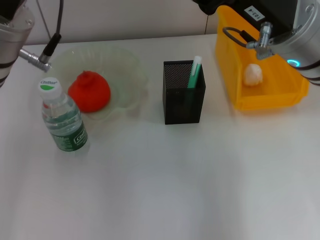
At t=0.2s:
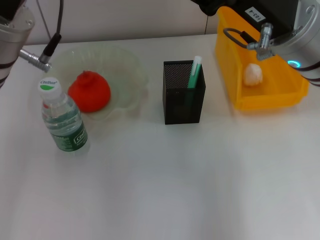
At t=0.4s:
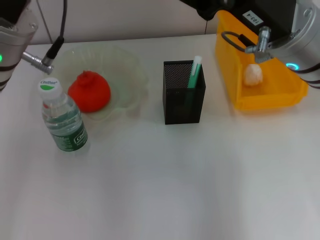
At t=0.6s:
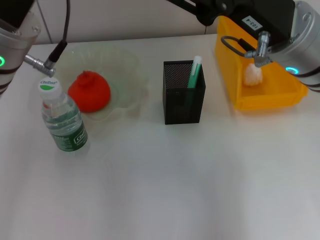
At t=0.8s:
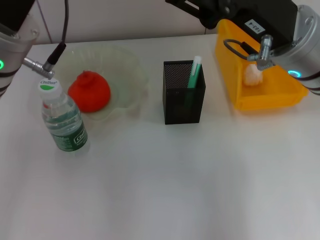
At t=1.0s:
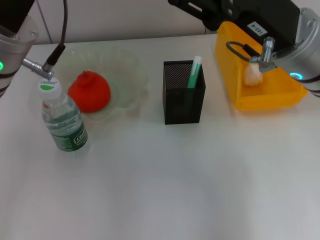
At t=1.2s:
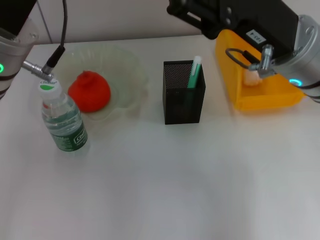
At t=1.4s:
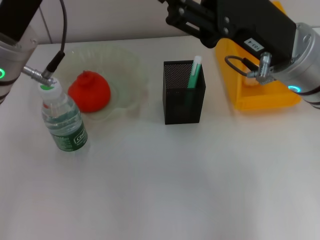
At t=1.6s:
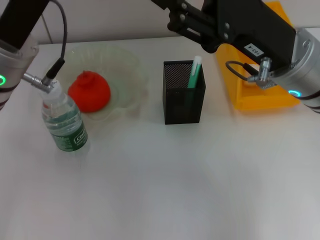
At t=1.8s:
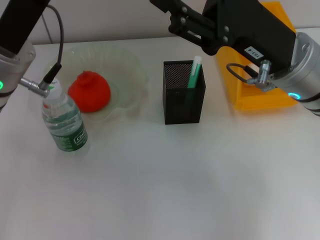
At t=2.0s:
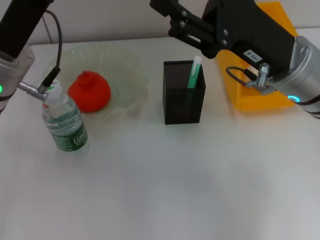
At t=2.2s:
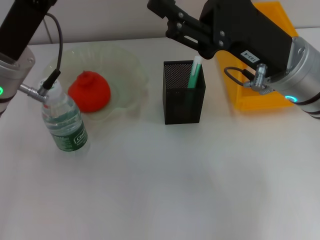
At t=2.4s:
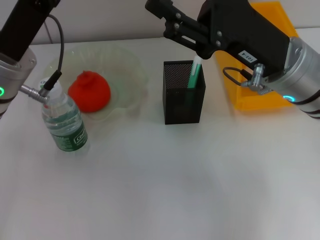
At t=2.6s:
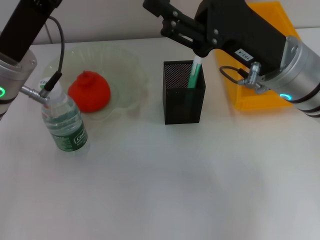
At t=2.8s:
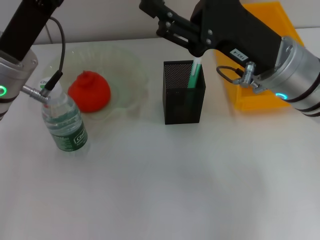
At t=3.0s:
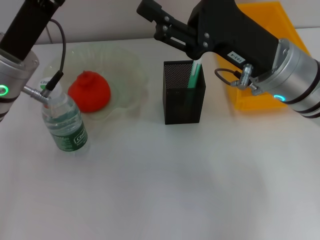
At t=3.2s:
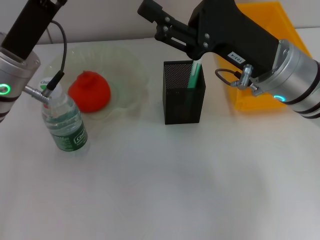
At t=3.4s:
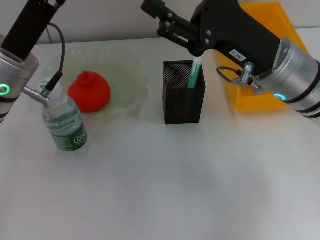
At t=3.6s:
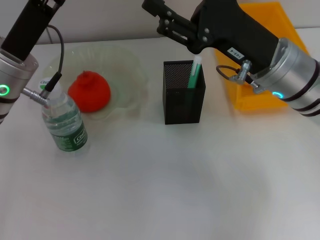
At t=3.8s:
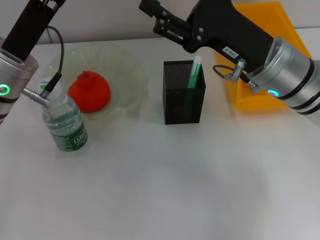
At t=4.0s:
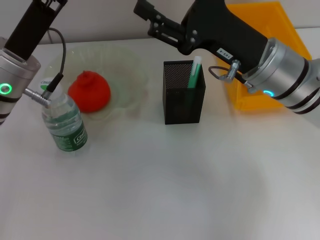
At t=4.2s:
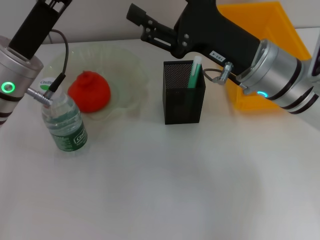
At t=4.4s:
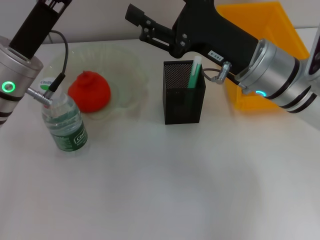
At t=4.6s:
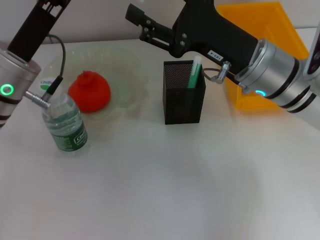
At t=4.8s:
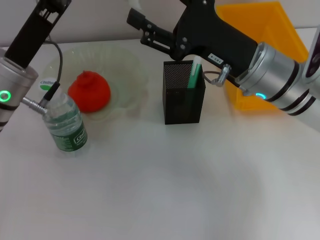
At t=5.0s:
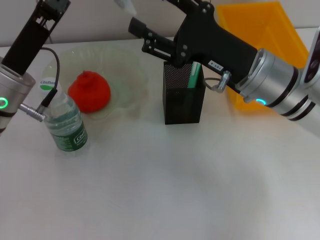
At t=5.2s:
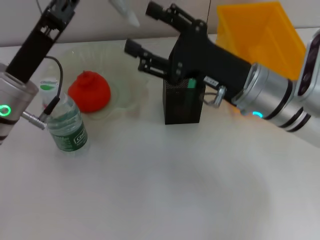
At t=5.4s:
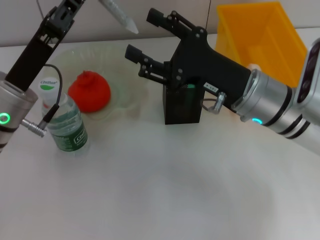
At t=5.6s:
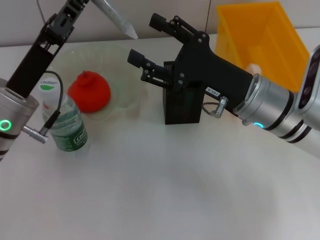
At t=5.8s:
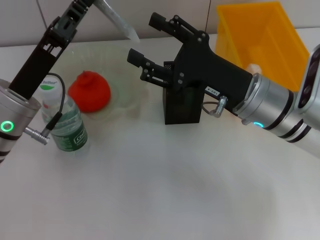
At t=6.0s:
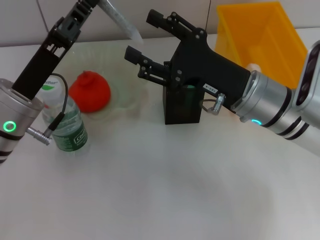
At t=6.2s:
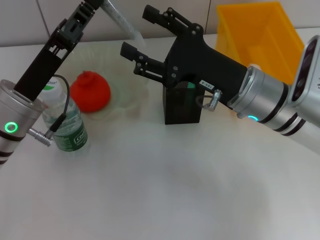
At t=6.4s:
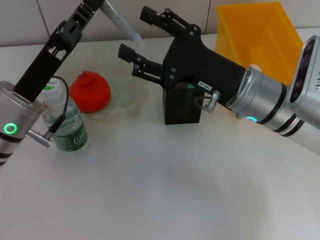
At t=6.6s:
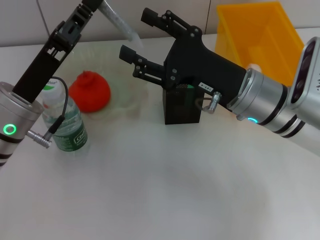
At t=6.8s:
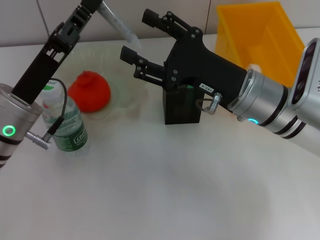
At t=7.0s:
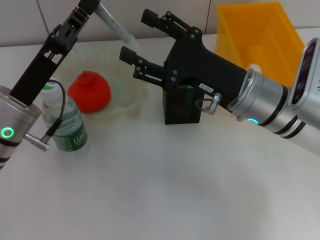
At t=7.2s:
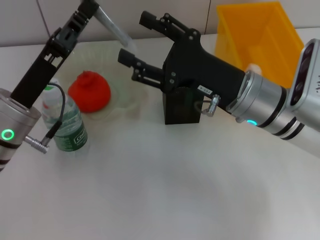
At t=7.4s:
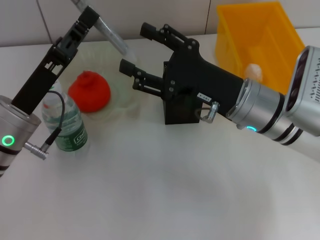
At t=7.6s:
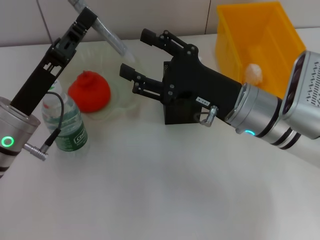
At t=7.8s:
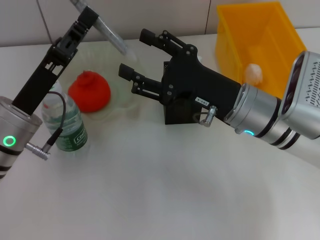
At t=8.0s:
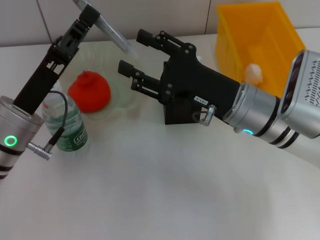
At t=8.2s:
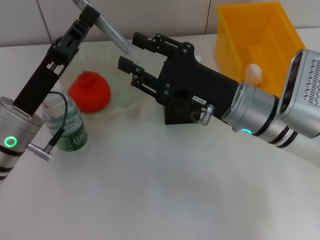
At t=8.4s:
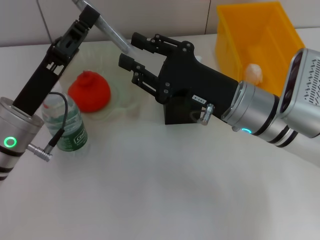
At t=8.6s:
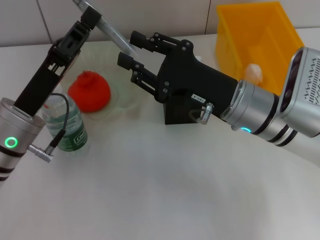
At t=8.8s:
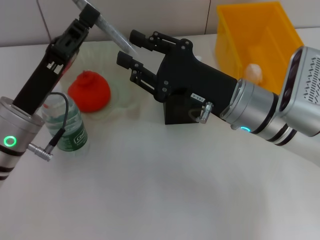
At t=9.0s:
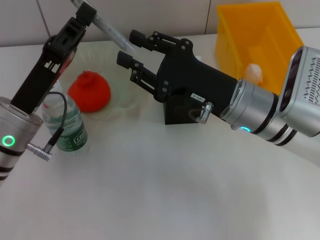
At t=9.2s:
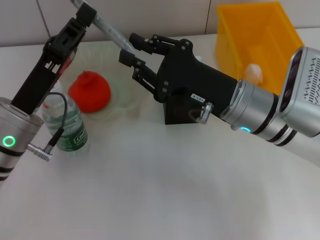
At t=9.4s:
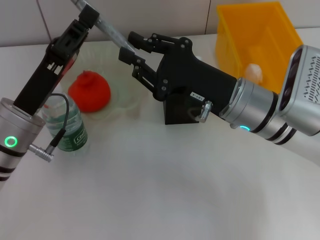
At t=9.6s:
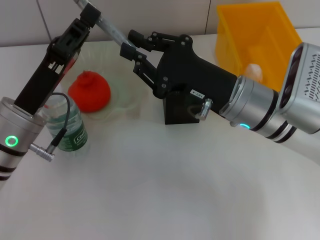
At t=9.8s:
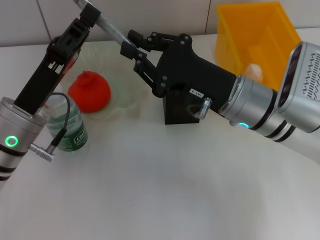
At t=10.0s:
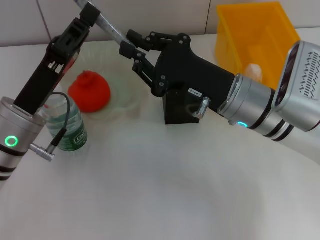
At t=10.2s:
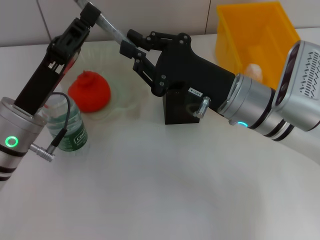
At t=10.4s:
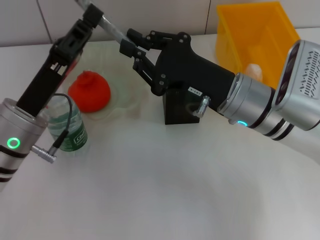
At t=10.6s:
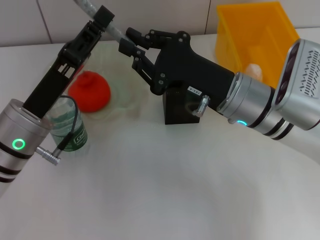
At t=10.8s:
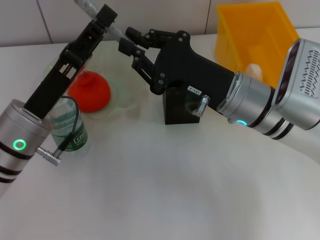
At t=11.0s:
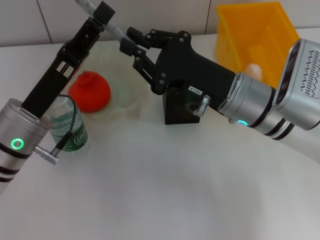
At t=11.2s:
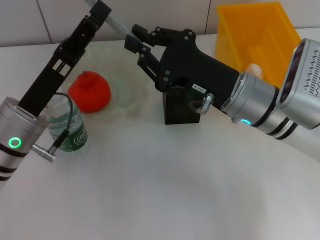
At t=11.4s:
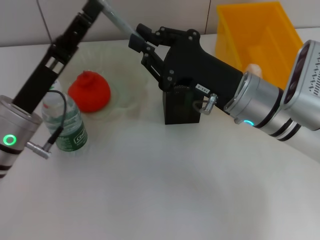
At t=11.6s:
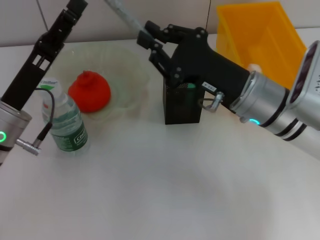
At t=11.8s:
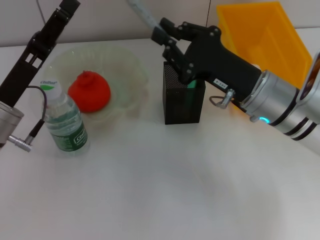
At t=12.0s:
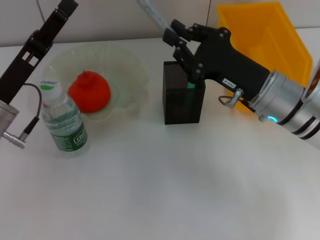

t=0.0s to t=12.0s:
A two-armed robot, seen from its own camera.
t=0.0s to t=3.0s: The grippers stay close to where they were, moving slightly.
t=3.0s to t=4.4s: The grippers stay close to where they were, moving slightly.
t=6.0s to t=7.6s: The grippers stay close to where they were, moving slightly.
t=7.6s to t=9.0s: The right gripper closes.
t=9.0s to t=10.4s: The right gripper closes up.
t=10.4s to t=12.0s: The left gripper opens up.

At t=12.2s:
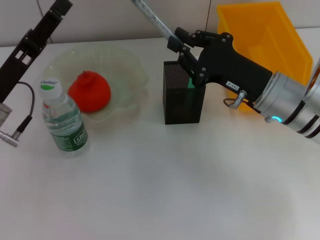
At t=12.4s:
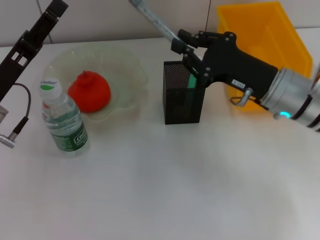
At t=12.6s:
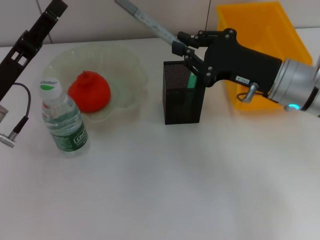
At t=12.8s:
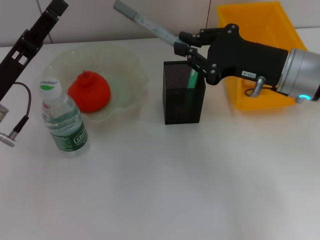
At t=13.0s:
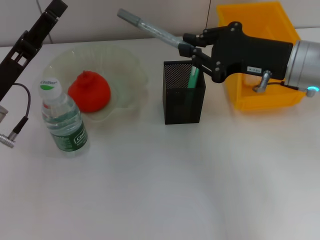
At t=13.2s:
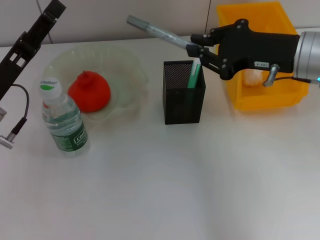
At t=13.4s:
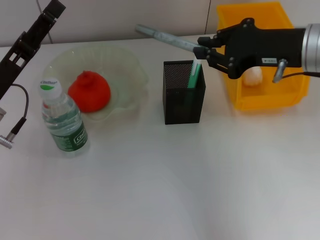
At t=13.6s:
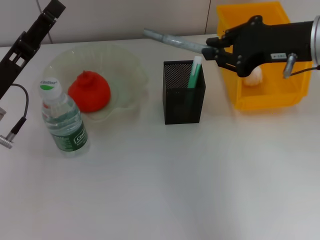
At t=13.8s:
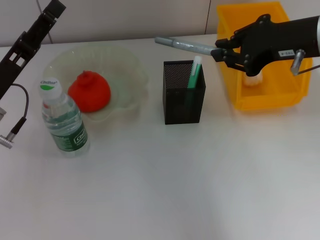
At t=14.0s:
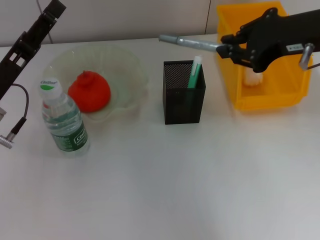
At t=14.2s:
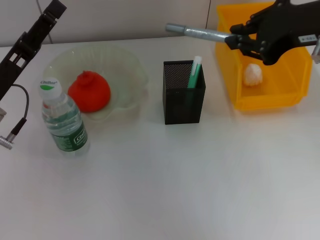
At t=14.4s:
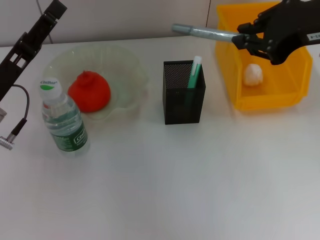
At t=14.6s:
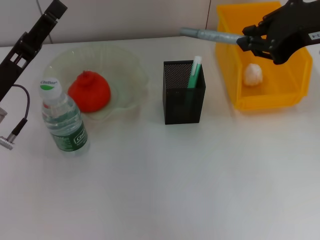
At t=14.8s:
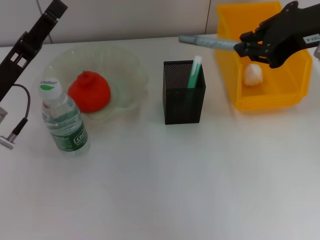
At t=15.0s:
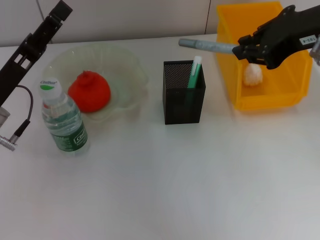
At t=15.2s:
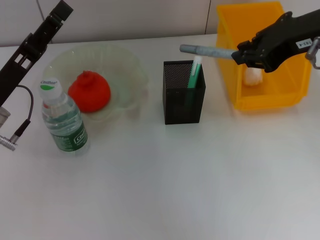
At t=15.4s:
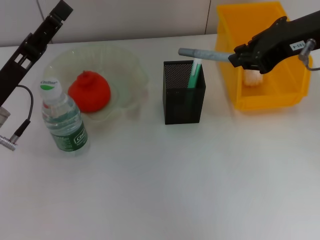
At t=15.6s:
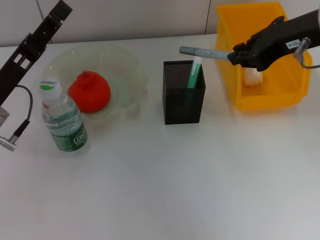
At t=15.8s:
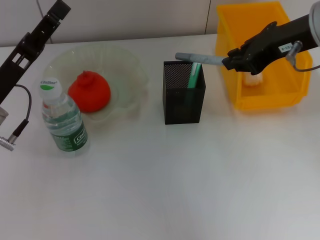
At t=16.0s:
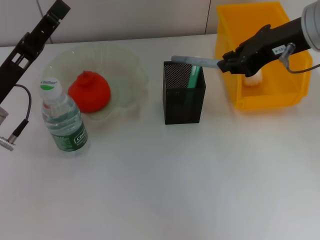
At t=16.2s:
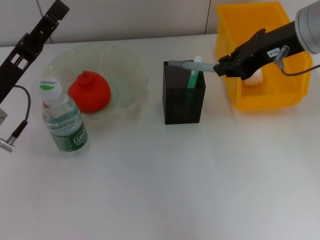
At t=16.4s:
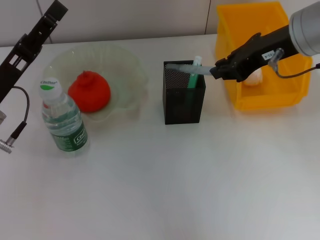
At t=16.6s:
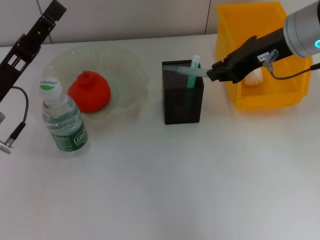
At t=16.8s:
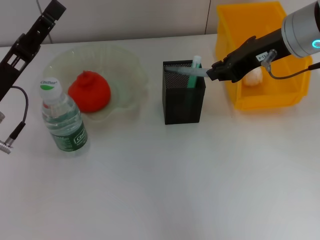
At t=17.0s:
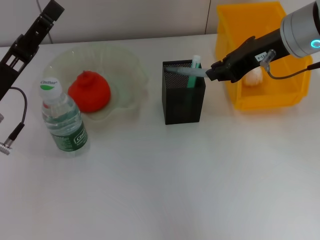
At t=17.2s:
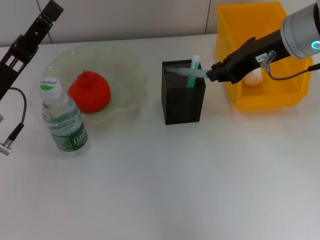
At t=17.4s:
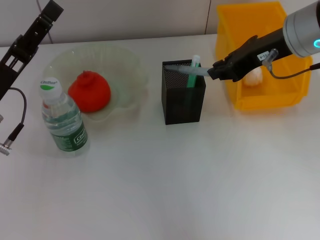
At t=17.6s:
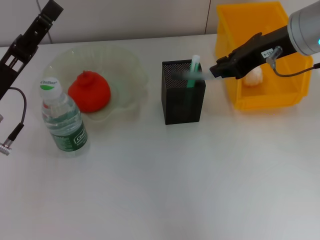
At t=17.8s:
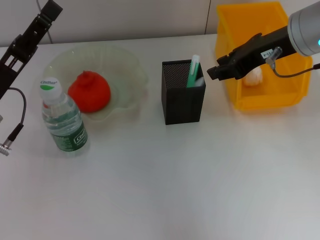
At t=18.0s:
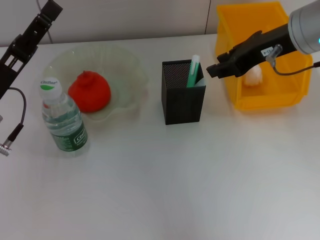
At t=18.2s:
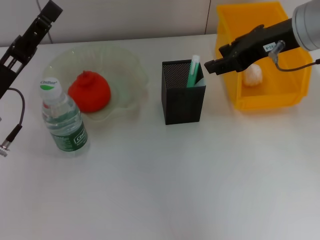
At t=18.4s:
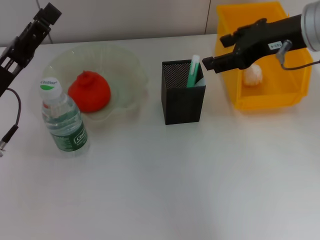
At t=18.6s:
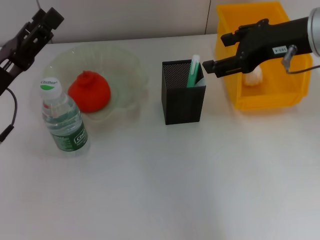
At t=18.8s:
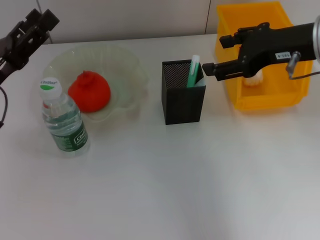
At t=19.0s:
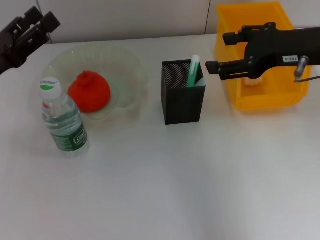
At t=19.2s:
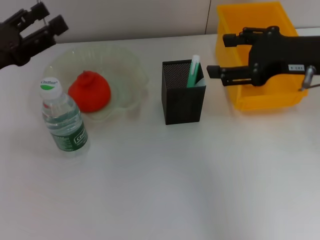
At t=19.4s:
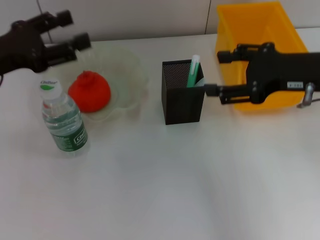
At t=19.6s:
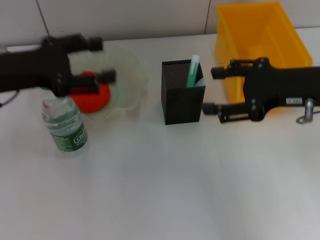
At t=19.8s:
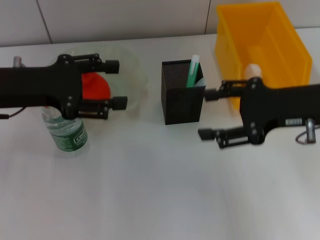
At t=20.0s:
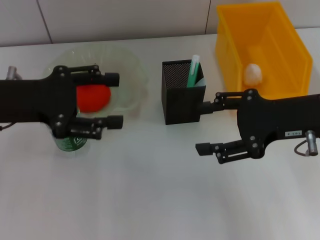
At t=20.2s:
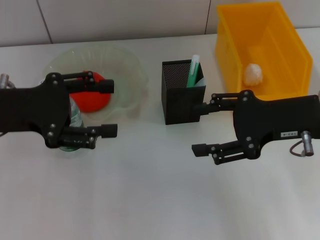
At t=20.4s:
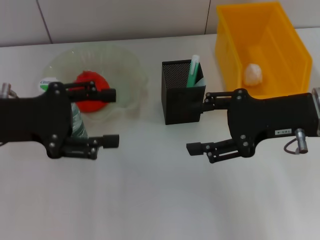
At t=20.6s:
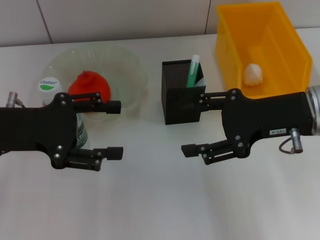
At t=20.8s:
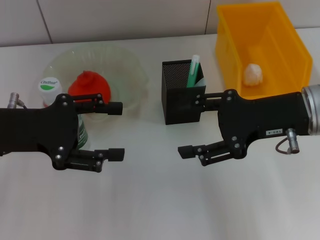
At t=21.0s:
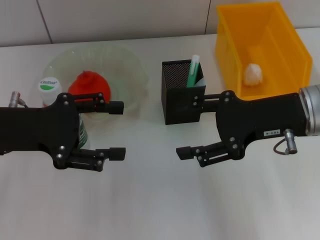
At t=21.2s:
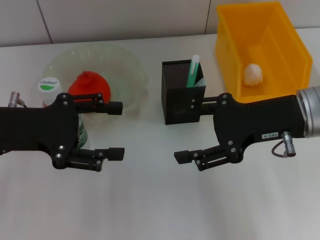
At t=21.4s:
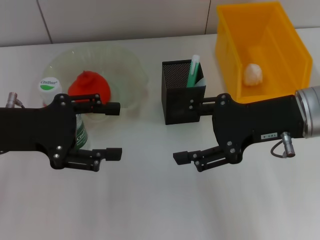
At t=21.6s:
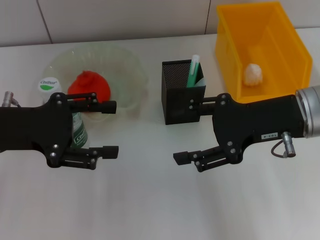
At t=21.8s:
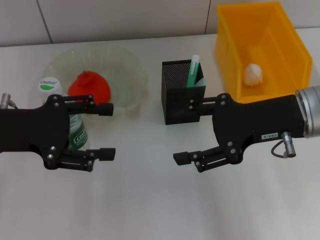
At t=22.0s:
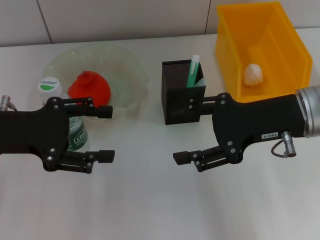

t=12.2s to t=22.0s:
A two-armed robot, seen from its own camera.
Step, t=12.4s to t=18.8s: Place the gray glue into the pen holder with the right hand.
t=12.2s to t=13.6s: The right gripper heads upward, covering some 10 cm.
t=13.6s to t=15.0s: The right gripper heads upward, covering some 5 cm.
t=15.0s to t=16.4s: The right gripper is displaced downward by some 5 cm.
t=16.4s to t=17.8s: Both grippers stay put.
t=17.8s to t=19.2s: The left gripper moves about 5 cm; the right gripper moves backward, about 5 cm, and opens up.
t=19.2s to t=20.6s: The right gripper moves roughly 5 cm, while the left gripper changes place by about 5 cm.
t=20.6s to t=22.0s: Both grippers stay put.
